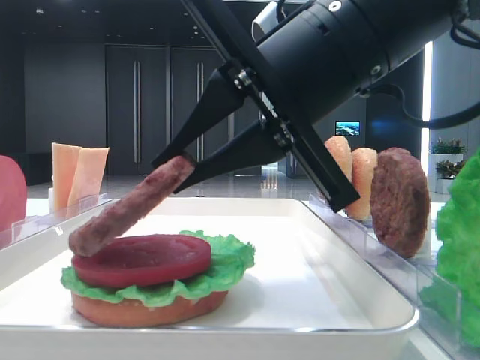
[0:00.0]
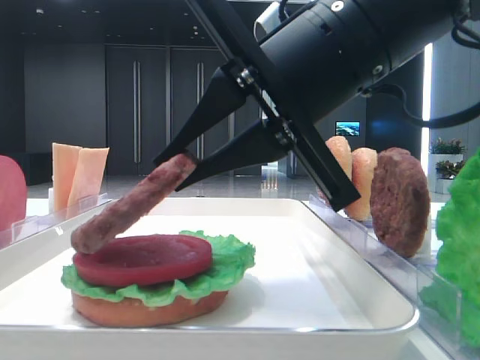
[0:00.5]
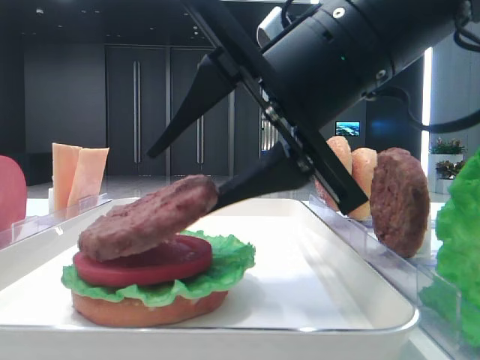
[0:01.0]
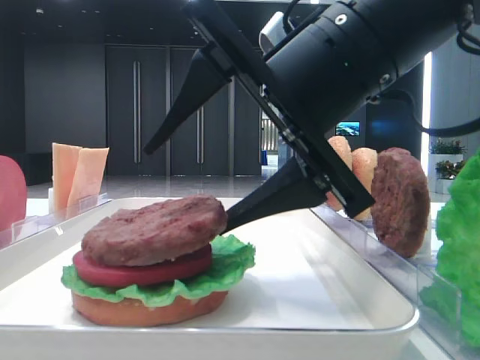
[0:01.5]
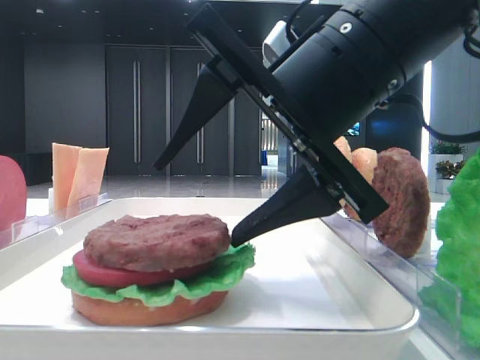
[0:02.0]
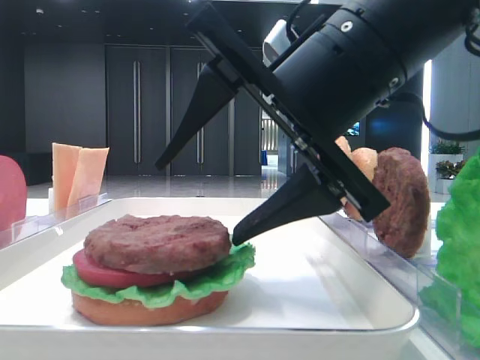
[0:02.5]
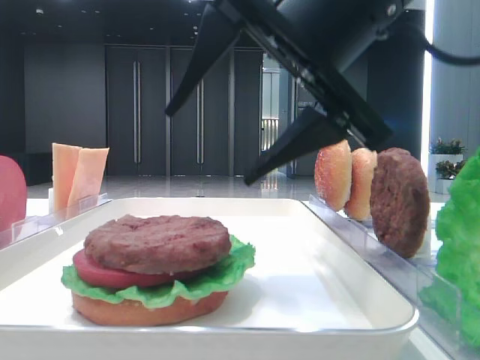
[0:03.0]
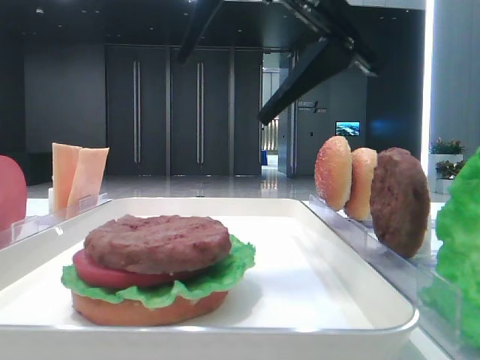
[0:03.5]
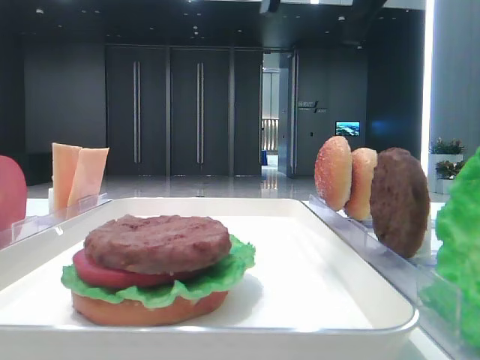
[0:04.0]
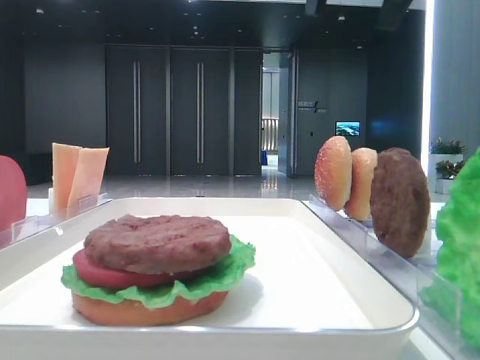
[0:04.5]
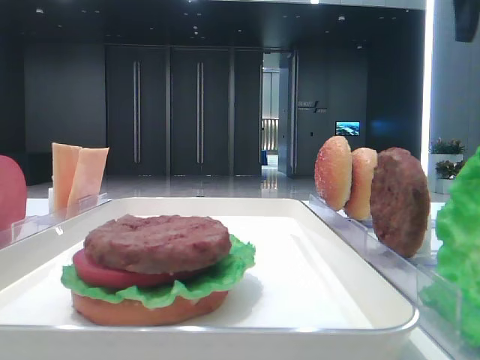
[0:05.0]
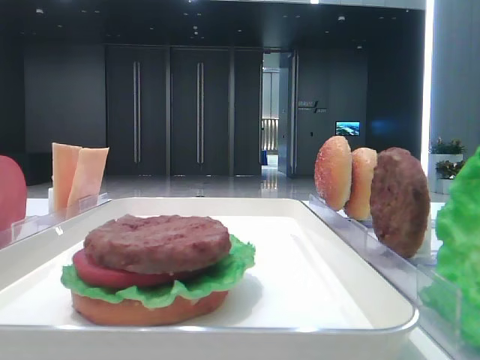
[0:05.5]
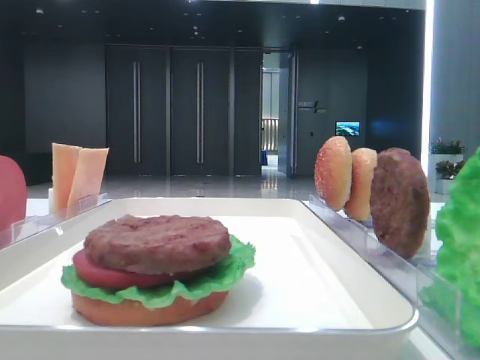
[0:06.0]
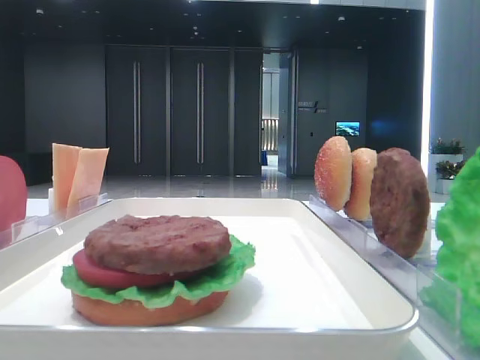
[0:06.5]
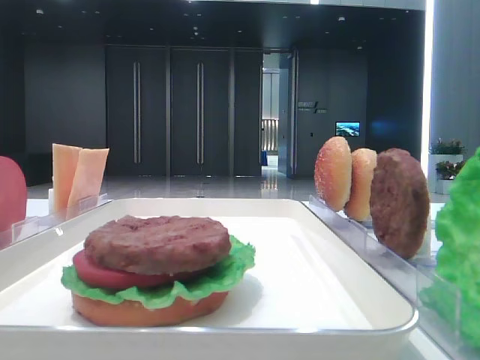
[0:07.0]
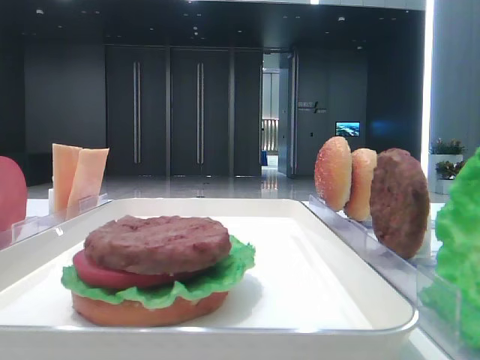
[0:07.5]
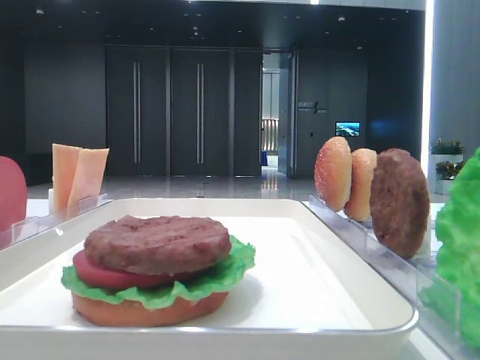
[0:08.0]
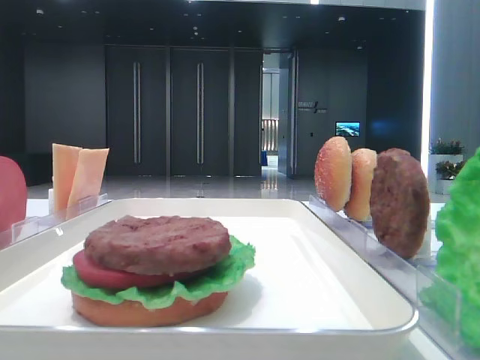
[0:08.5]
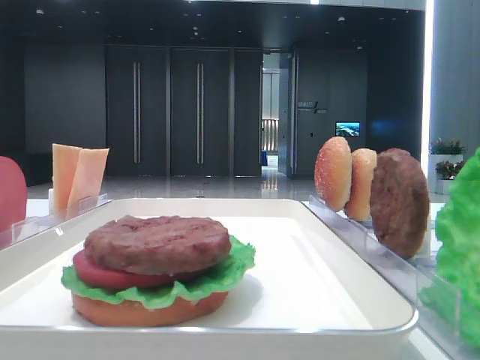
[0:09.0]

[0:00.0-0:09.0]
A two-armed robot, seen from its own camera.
Step, 0:00.0 to 0:02.5: Place the patty on the tomato slice with the right hand.
0:00.0 to 0:02.0: The right gripper opens its fingers.
0:02.0 to 0:04.5: The right gripper goes about 20 cm upward.
0:04.5 to 0:07.0: The right gripper is displaced backward and to the right by approximately 30 cm.

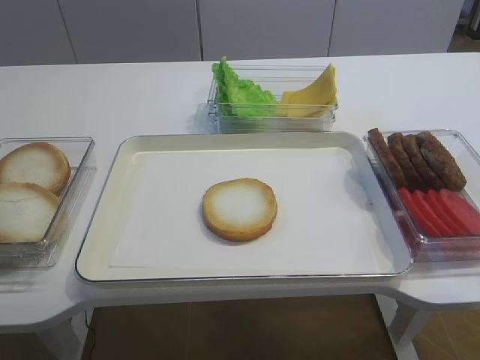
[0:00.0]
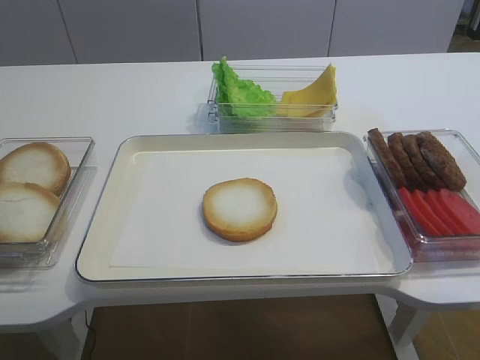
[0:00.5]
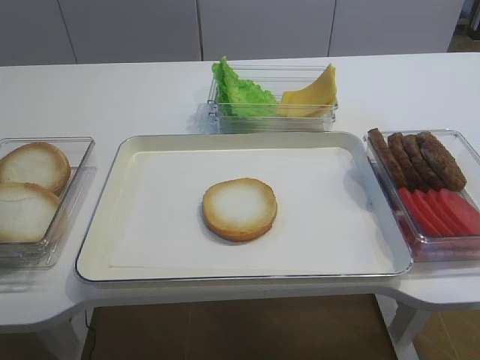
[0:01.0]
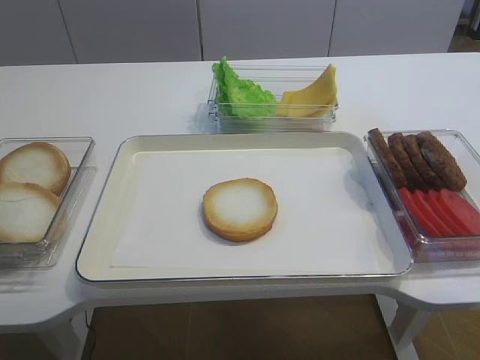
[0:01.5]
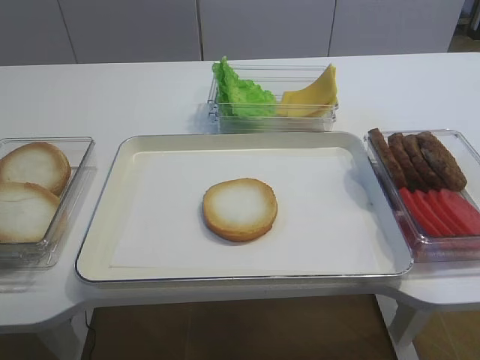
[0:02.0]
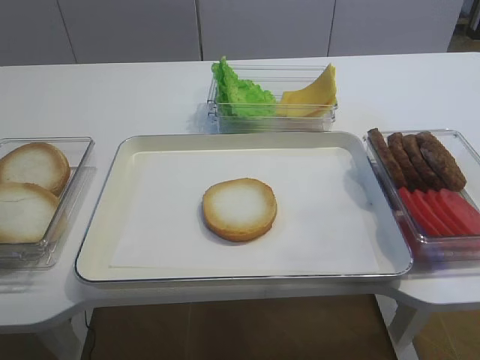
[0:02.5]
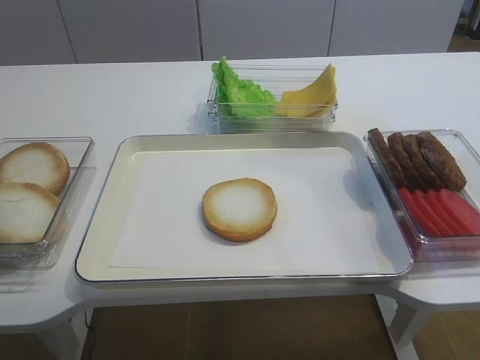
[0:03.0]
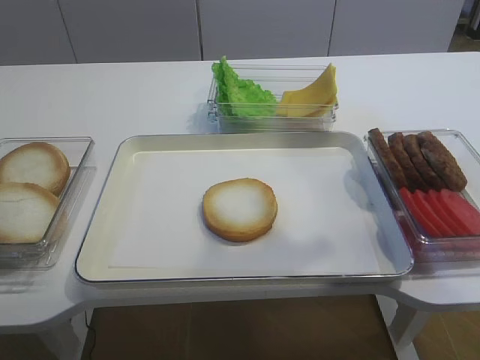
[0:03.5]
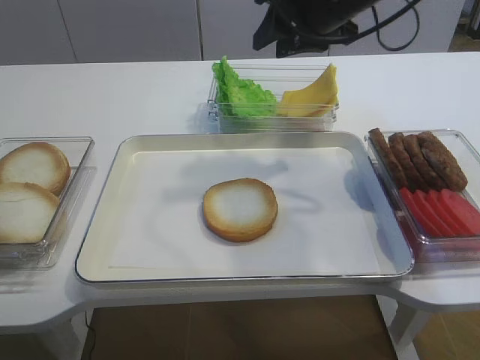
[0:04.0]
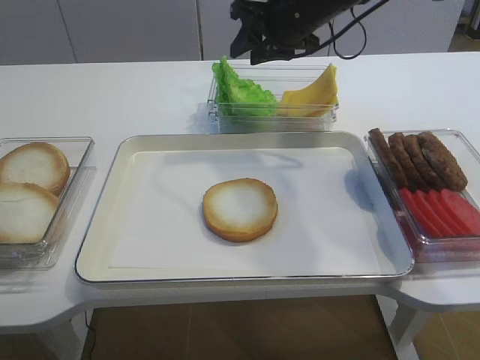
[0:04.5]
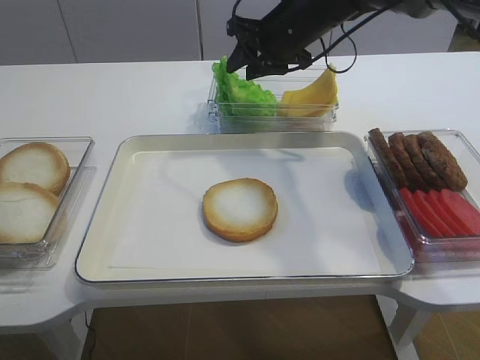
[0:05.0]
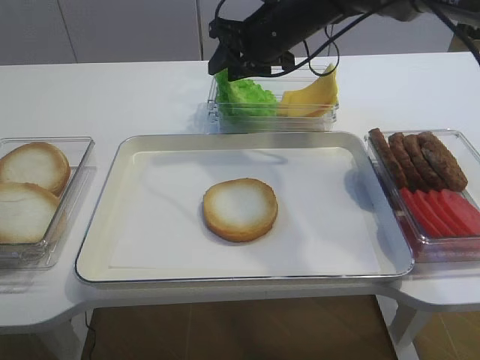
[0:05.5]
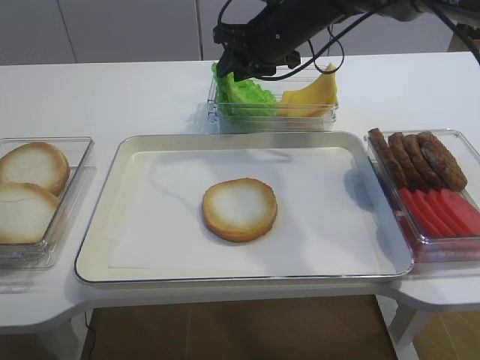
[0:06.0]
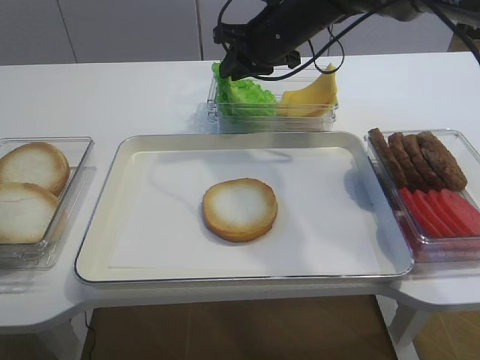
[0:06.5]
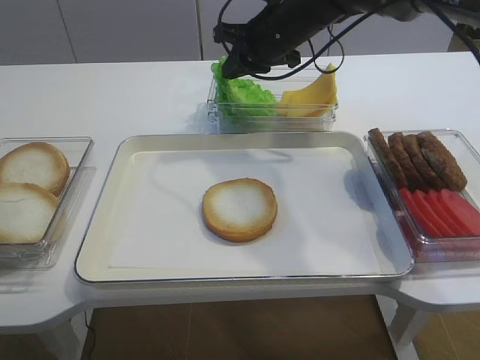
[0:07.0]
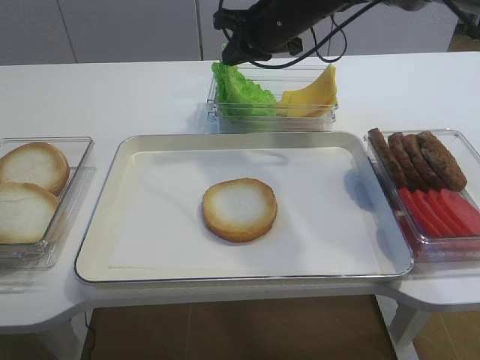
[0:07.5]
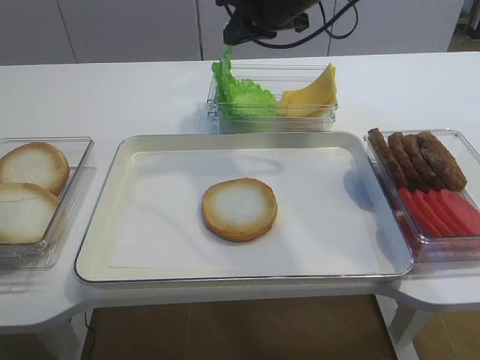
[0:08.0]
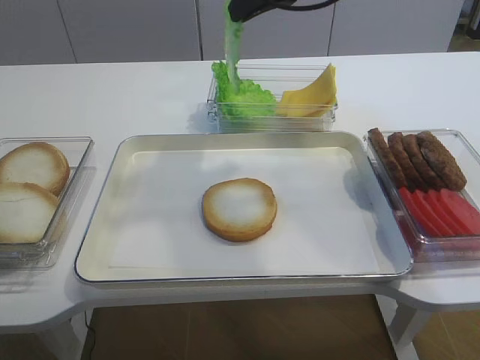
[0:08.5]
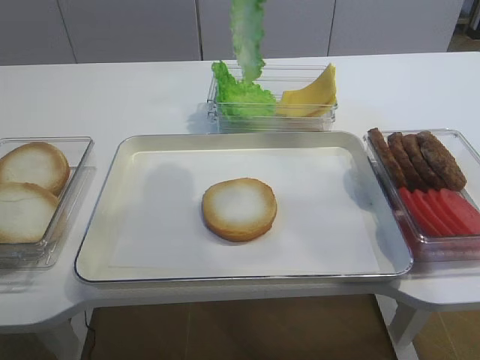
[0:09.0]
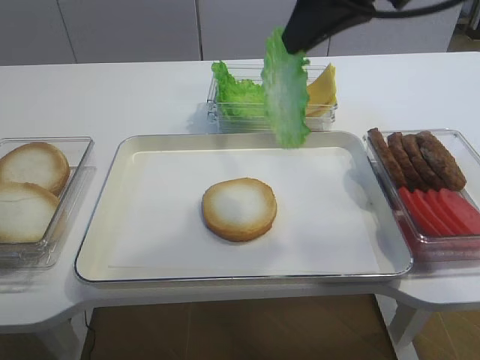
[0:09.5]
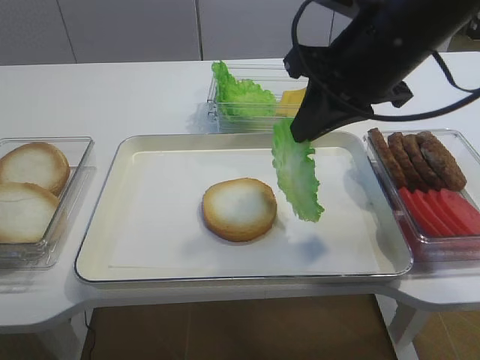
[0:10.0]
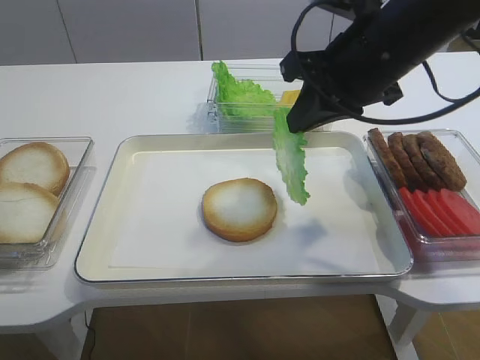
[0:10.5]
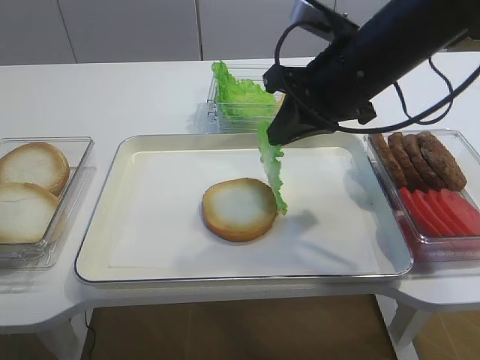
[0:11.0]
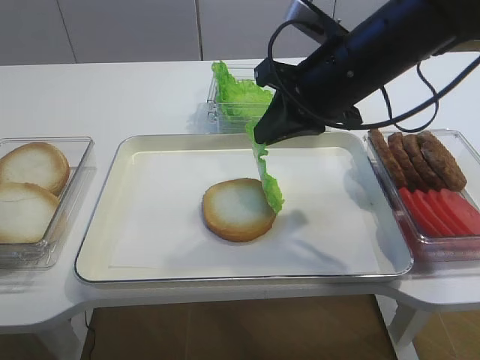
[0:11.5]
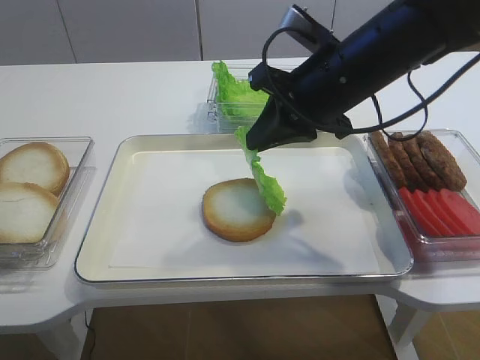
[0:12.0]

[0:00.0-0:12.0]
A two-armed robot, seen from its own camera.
Step, 0:00.0 to 0:08.5: Pick up the lettuce leaf with the right gripper.
0:02.0 to 0:04.0: The right gripper moves forward, approximately 40 cm.
0:04.0 to 0:06.0: The right gripper goes roughly 10 cm forward, downward and to the left.
0:06.0 to 0:08.0: The right gripper changes place by about 5 cm, and closes its fingers.
0:08.0 to 0:10.0: The right gripper shifts about 15 cm backward.
0:10.0 to 0:12.0: The right gripper is displaced downward by some 5 cm.

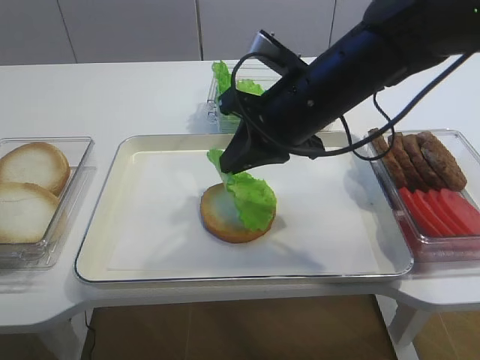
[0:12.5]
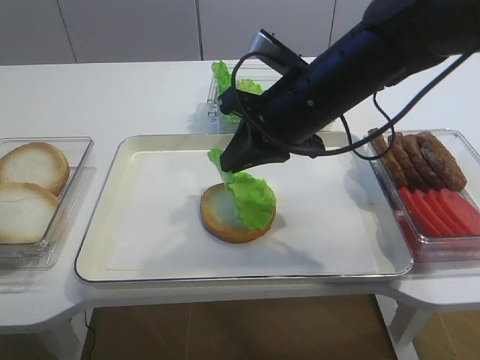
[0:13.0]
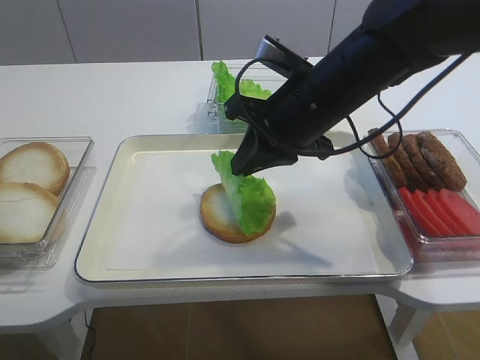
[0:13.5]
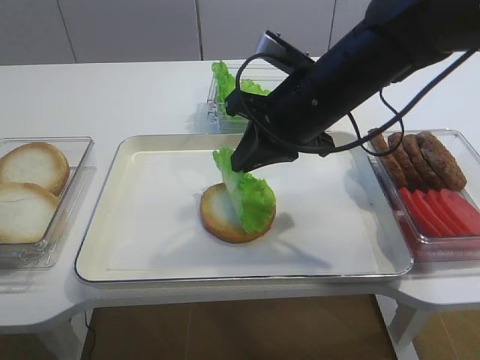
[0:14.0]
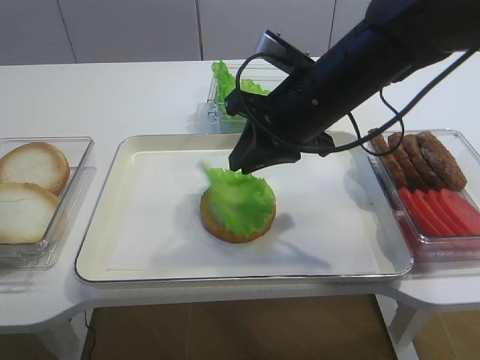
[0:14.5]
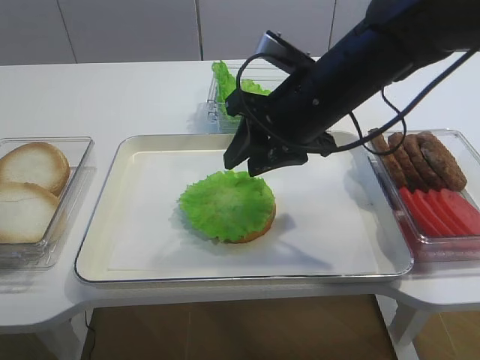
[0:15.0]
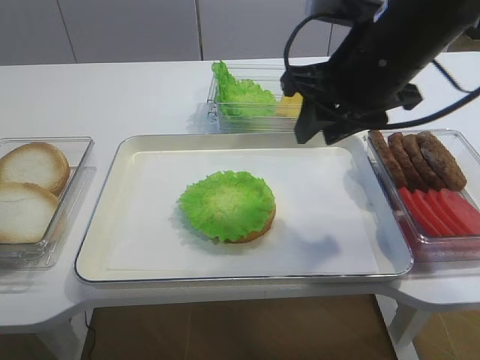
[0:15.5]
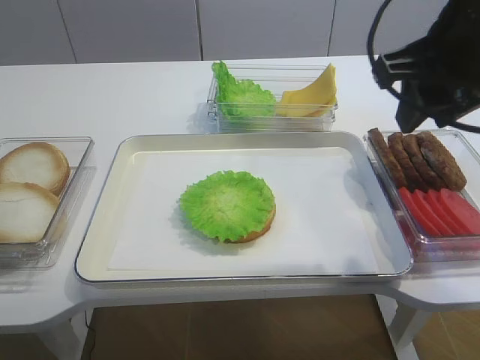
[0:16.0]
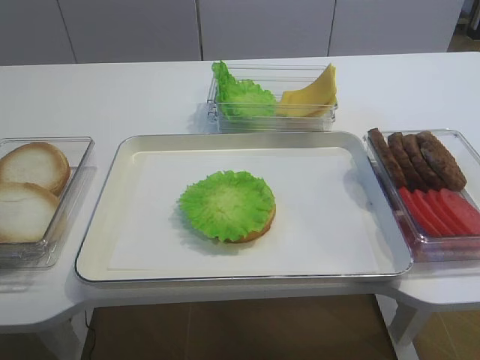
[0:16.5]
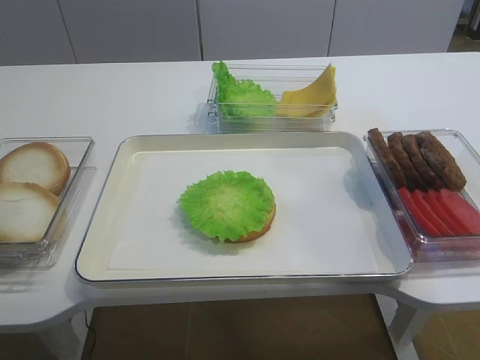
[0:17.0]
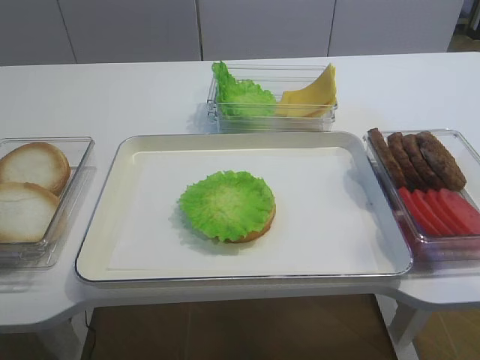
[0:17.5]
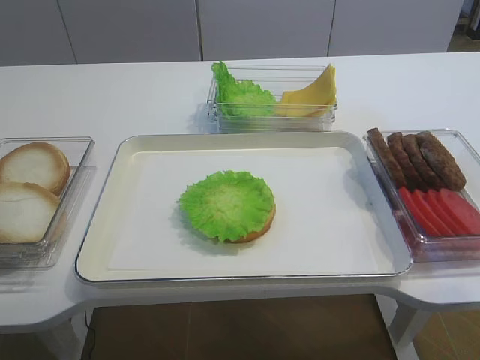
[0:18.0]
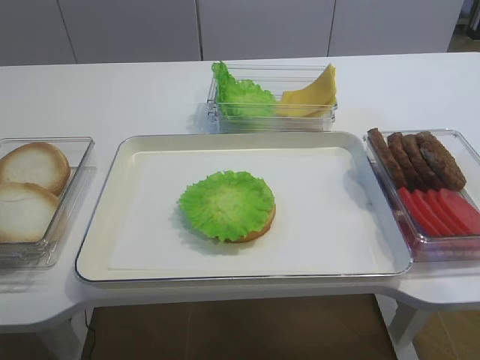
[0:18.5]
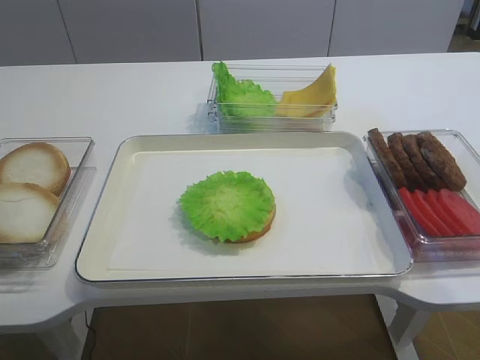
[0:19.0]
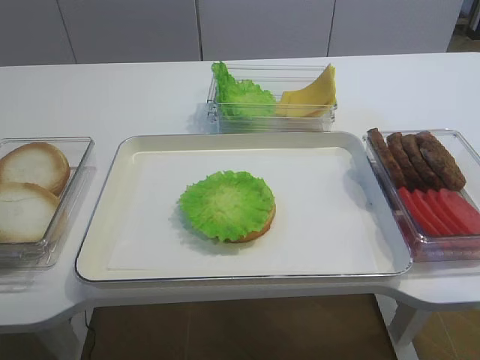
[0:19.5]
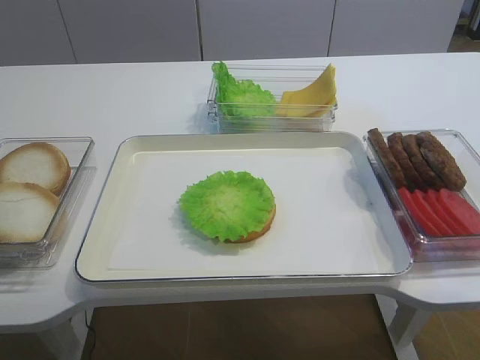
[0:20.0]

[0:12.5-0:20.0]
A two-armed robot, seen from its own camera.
Step, 0:12.5 to 0:15.0: Place the lettuce leaf on the bread slice with the right gripper.
0:12.5 to 0:14.5: Both grippers stay about where they are.
0:14.5 to 0:16.5: The right gripper is displaced upward, backward and to the right by about 25 cm, and opens up.
0:16.5 to 0:18.0: The right gripper moves backward, downward and to the right, approximately 25 cm.
